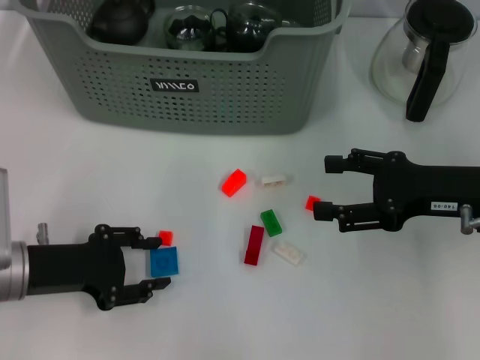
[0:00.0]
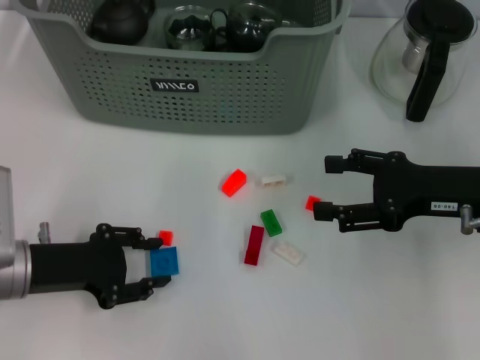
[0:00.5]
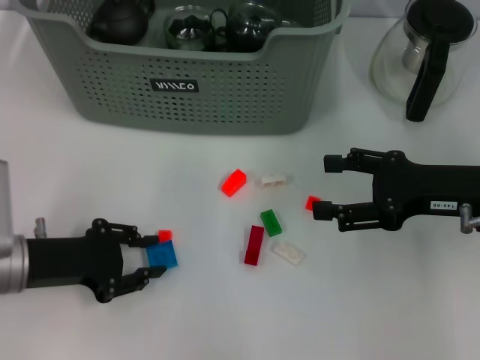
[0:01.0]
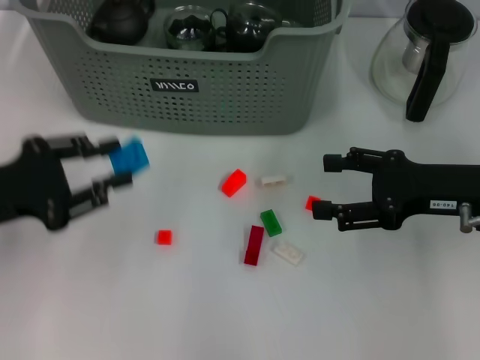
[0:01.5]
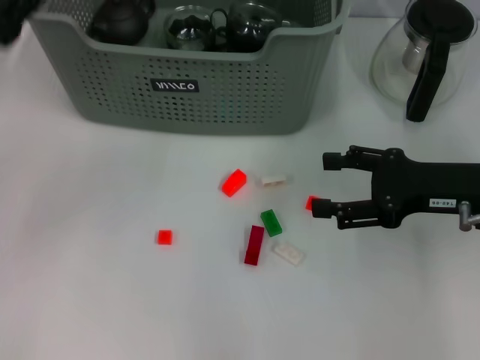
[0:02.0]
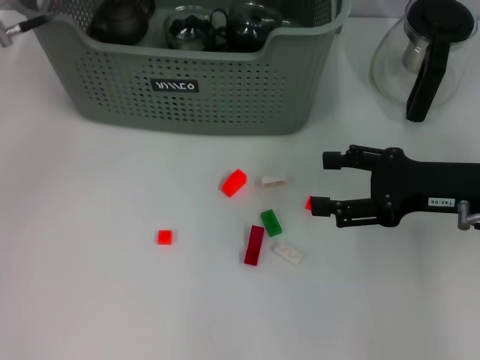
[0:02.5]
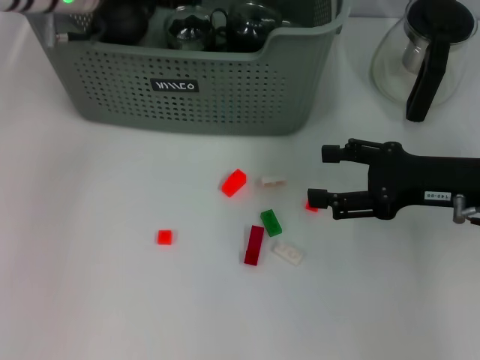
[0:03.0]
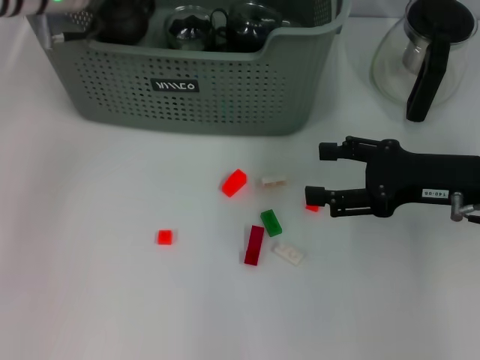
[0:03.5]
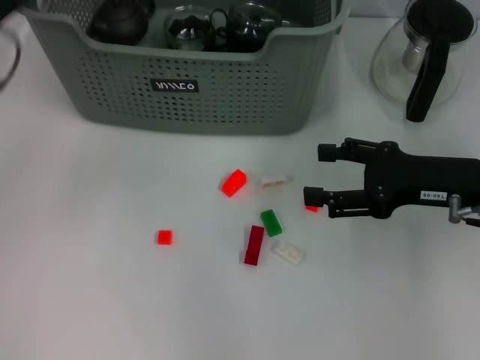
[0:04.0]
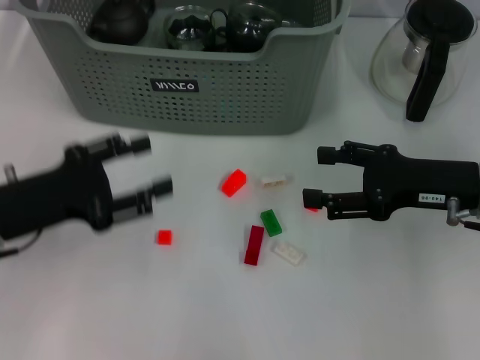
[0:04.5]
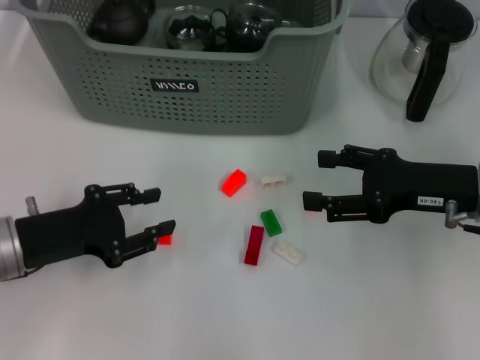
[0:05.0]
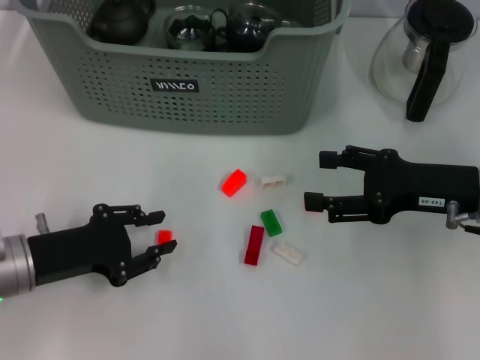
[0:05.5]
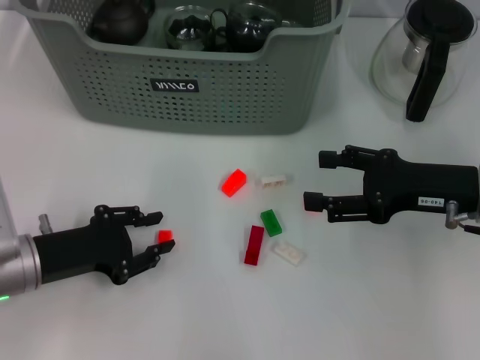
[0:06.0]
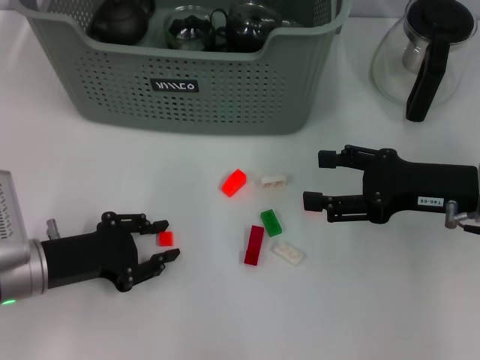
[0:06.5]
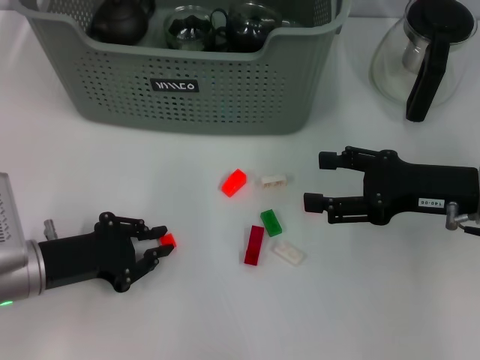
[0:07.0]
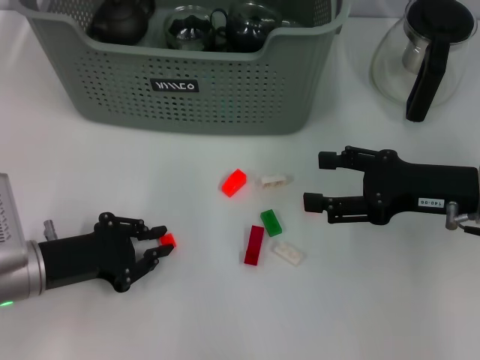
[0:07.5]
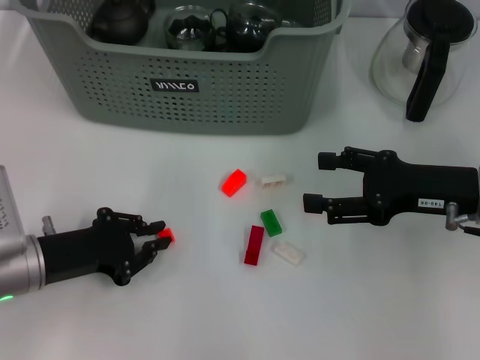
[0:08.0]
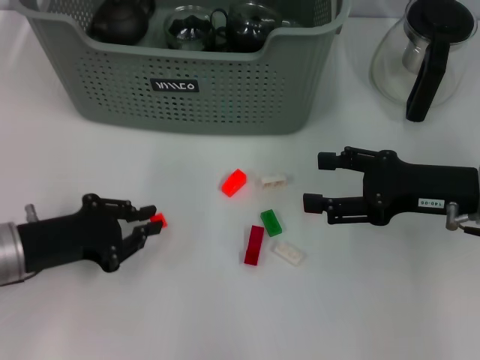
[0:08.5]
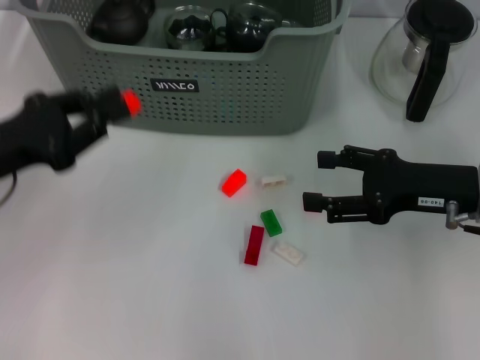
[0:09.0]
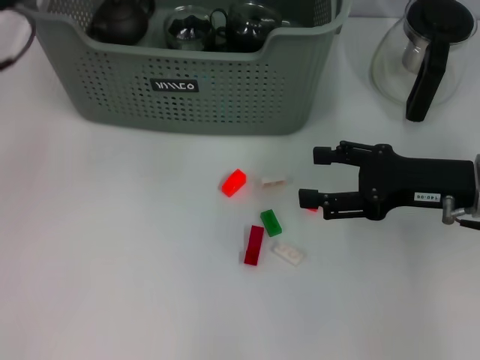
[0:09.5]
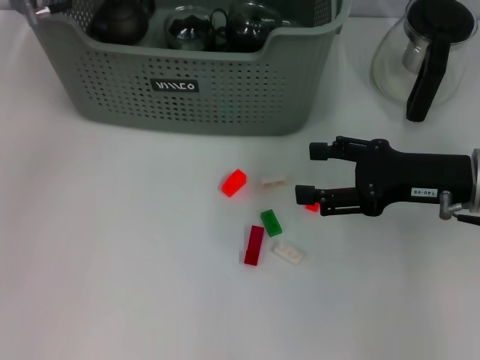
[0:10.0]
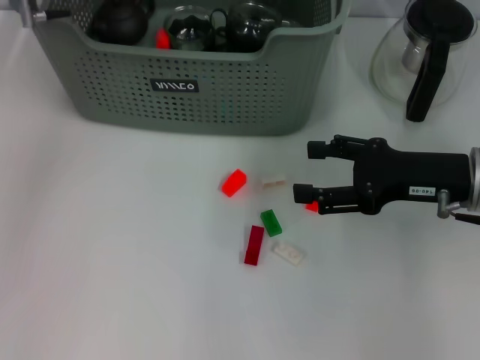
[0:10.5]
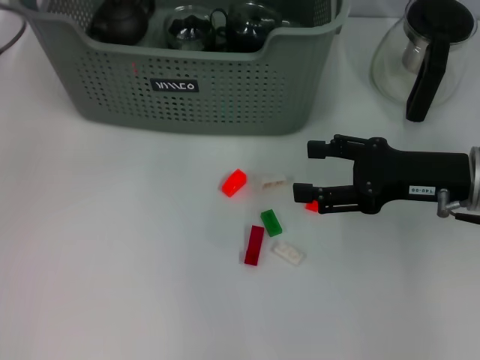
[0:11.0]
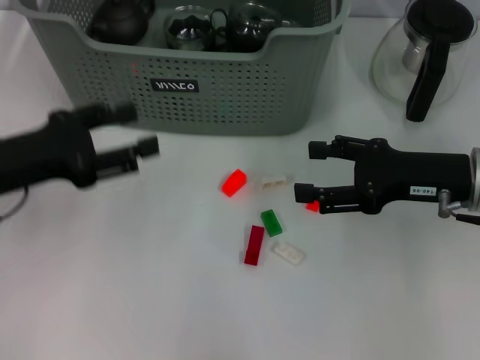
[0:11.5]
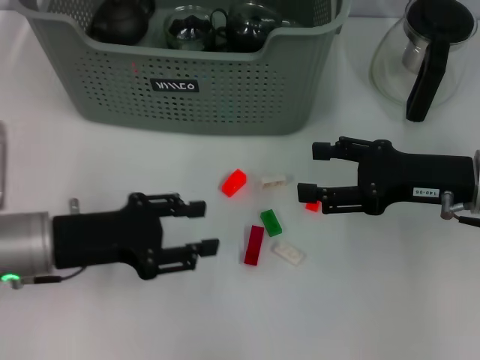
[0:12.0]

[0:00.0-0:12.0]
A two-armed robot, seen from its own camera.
Task of the whole recording: pick up the teacup on the table and place it into the storage bin, pick up the block on the table and place it into the storage bin.
Step, 0:01.5 to 0:03.5: Place the dark blue block in the storage box with left gripper.
Step, 0:04.0 to 0:08.0: Grasp the orange block with left gripper.
Step, 0:08.5 to 0:10.5: Place the orange block in the storage box with left gripper.
0:00.0 to 0:02.0: The left gripper travels upward and forward by some 10 cm.
0:02.0 to 0:04.0: The left gripper travels forward and back again, roughly 15 cm each way, and opens up.
0:04.0 to 0:06.0: The left gripper moves downward and backward, some 15 cm.
0:06.0 to 0:08.0: Neither gripper changes place.
0:08.0 to 0:10.0: The left gripper moves forward and upward, some 25 cm.
0:10.0 to 0:12.0: The left gripper moves backward and downward, approximately 25 cm, and opens its fingers.

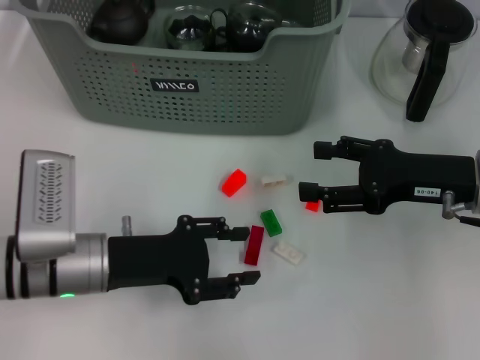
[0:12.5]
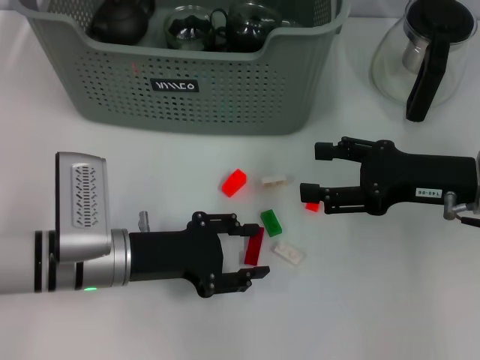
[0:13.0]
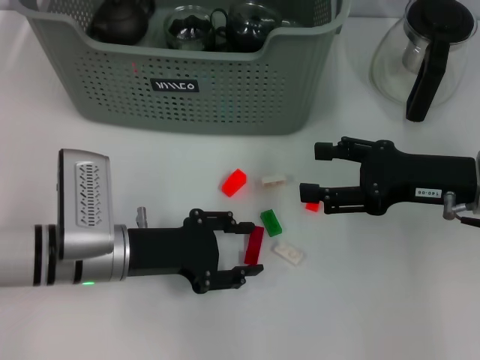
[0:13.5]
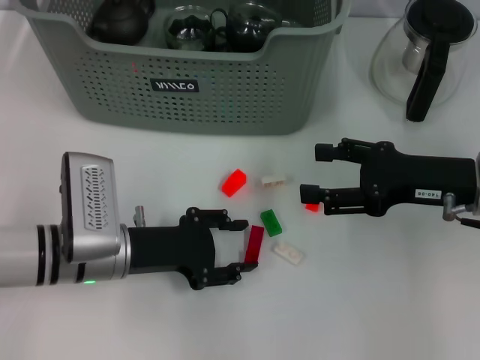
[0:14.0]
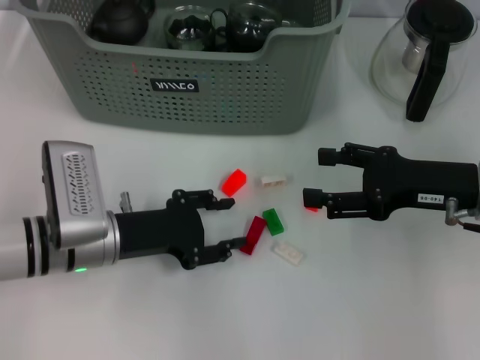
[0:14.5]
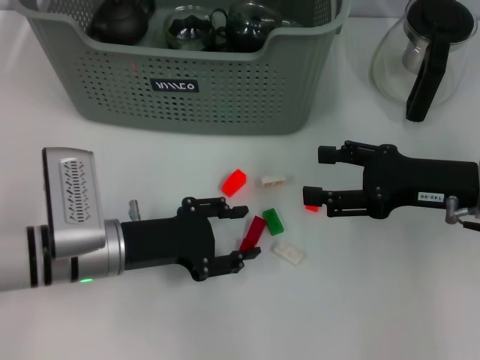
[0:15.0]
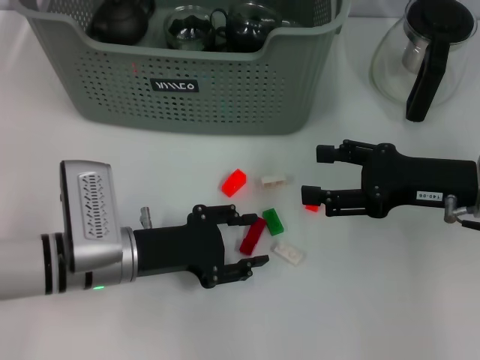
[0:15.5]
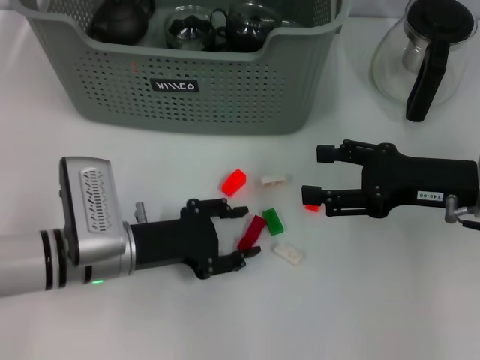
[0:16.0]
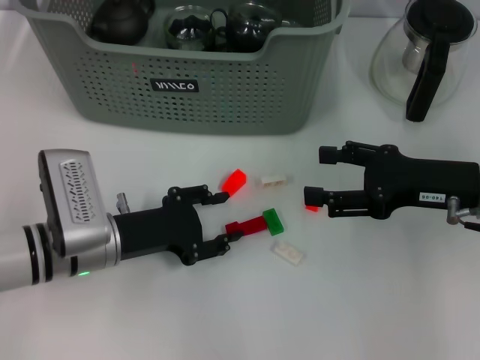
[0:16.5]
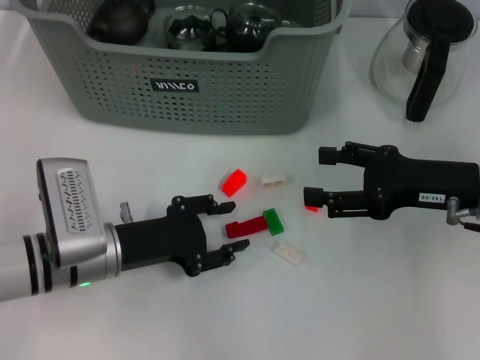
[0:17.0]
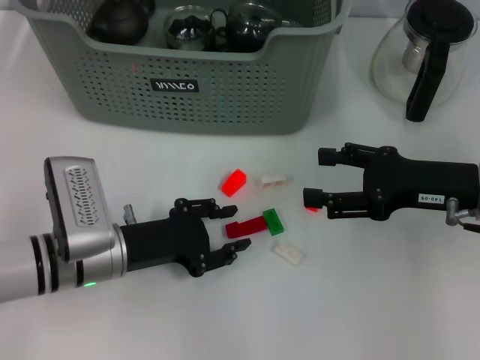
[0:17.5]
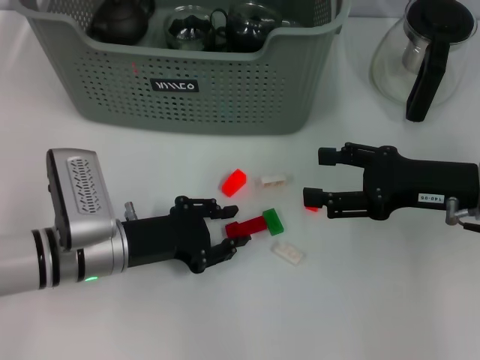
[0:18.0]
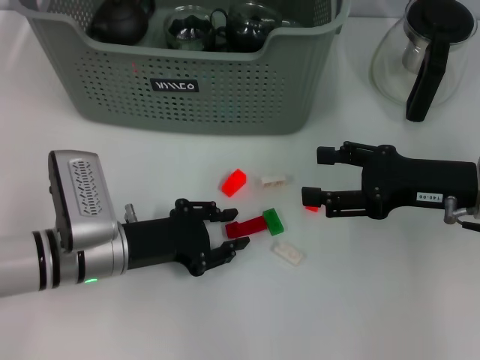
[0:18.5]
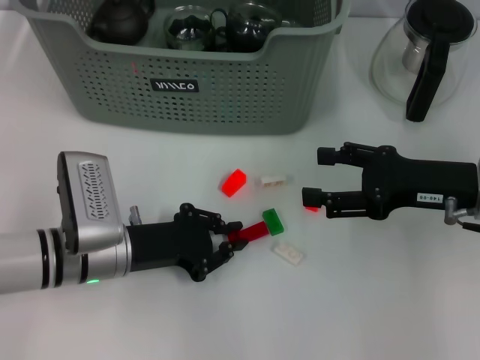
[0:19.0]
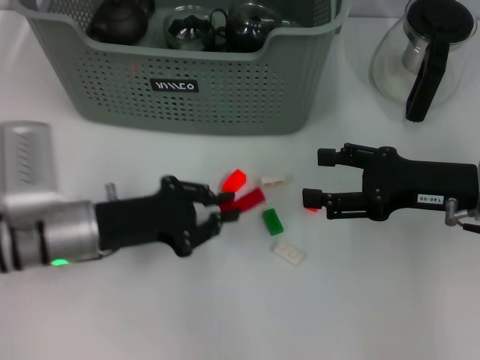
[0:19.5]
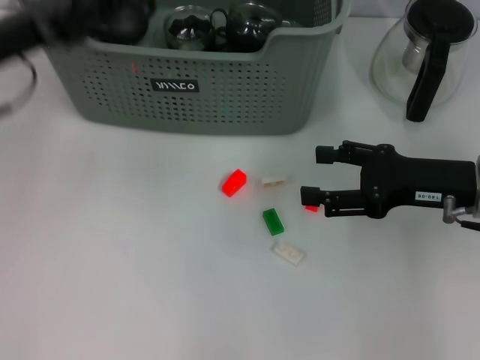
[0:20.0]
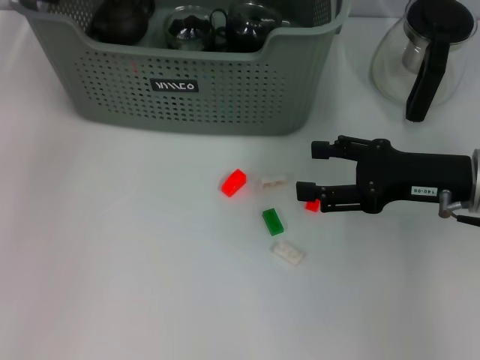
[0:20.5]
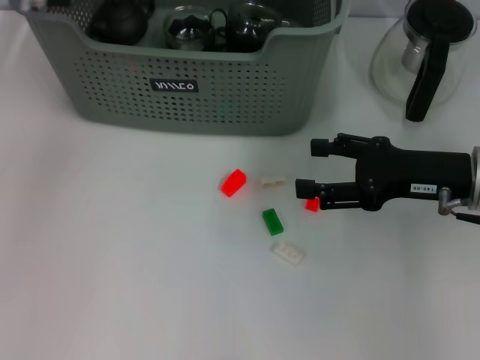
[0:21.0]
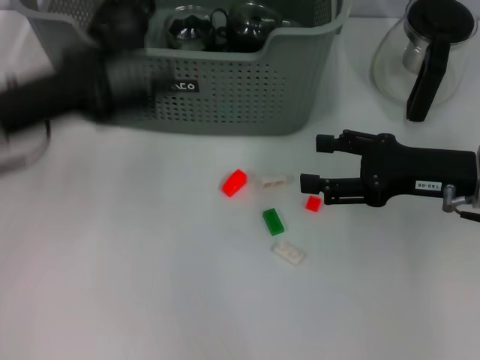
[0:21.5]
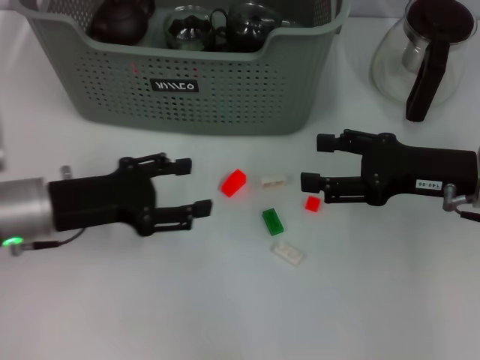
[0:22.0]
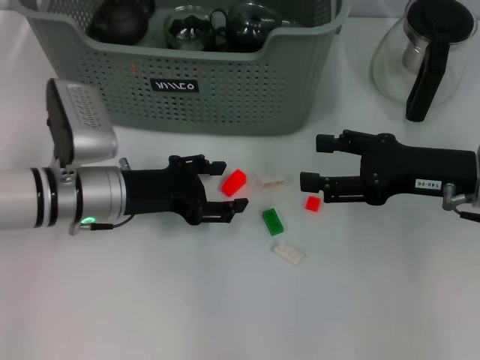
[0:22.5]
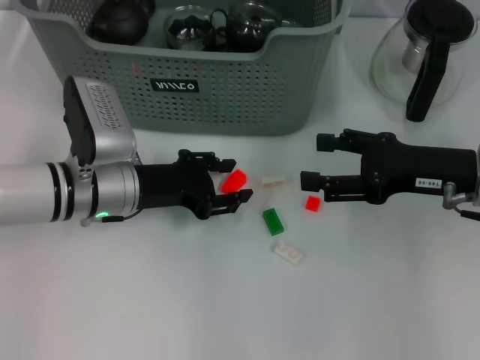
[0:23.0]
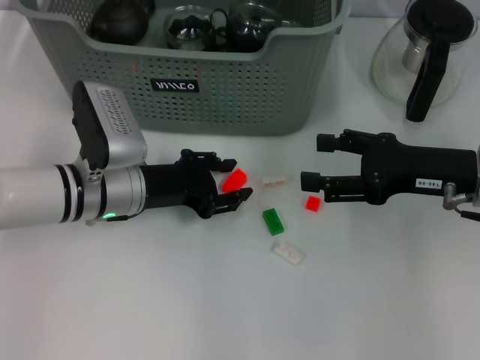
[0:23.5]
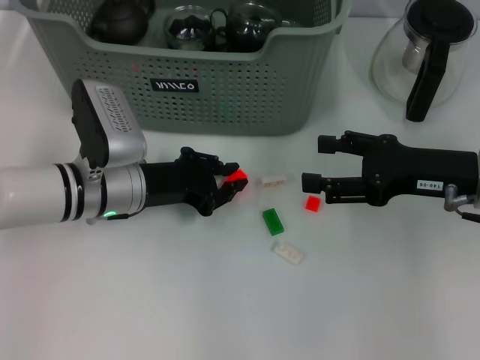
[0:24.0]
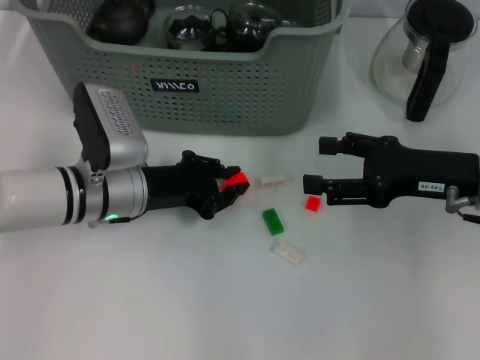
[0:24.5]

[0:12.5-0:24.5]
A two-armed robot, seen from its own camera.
Task of the whole recording: pick up the teacup on the table and place it into the storage bin, pick up the block on the table and place it into the storage bin.
Step, 0:12.5 to 0:18.5: Grasp the red block with left gripper.
Step, 0:19.5 to 0:21.0: Place the red block in the storage box with left gripper.
0:12.5 to 0:18.5: The grippers make only small movements.
0:18.5 to 0:20.5: The left gripper is displaced upward and forward by some 30 cm.
0:20.5 to 0:22.5: The left gripper goes roughly 25 cm downward and backward, and opens its fingers.
0:22.5 to 0:24.5: The left gripper closes up.

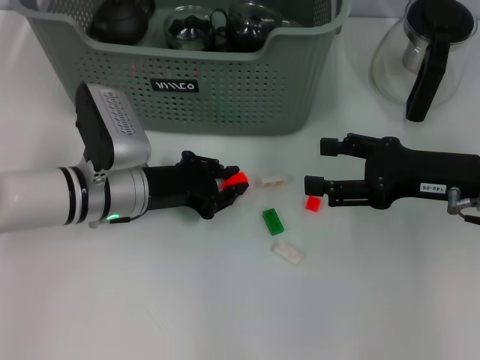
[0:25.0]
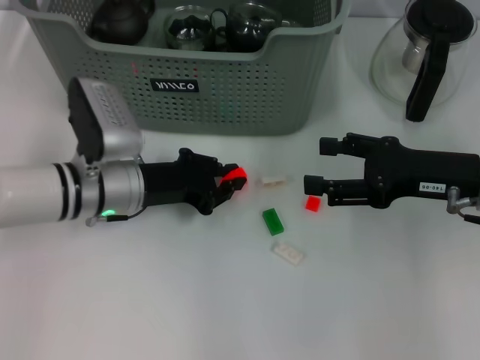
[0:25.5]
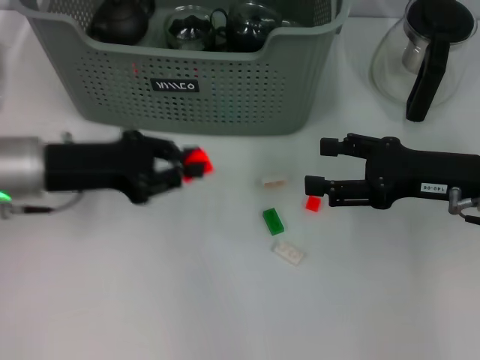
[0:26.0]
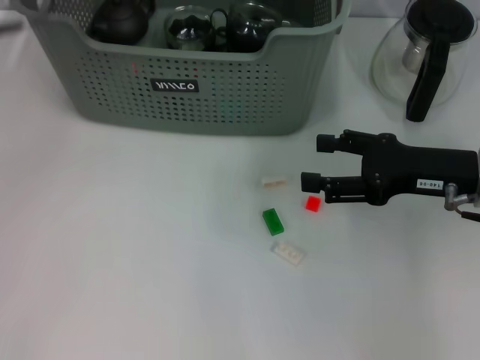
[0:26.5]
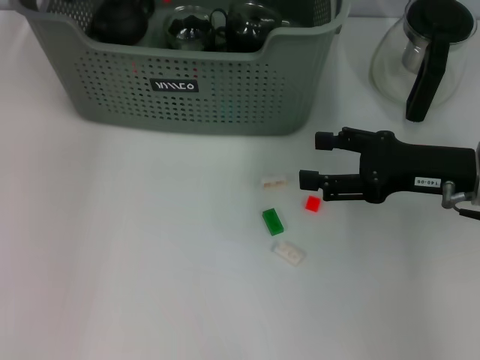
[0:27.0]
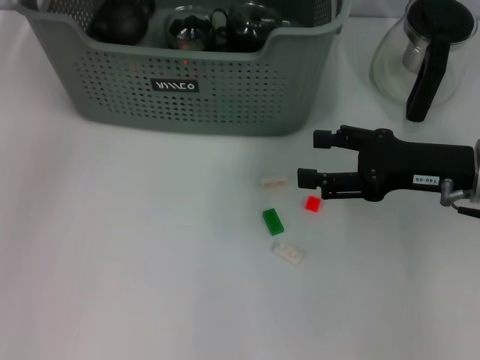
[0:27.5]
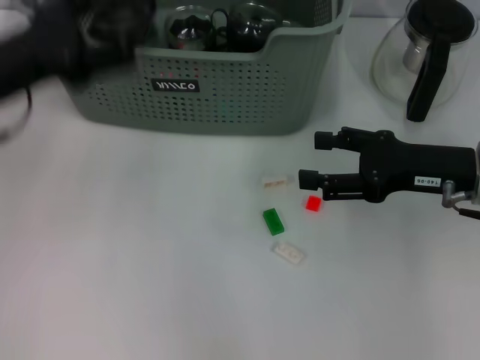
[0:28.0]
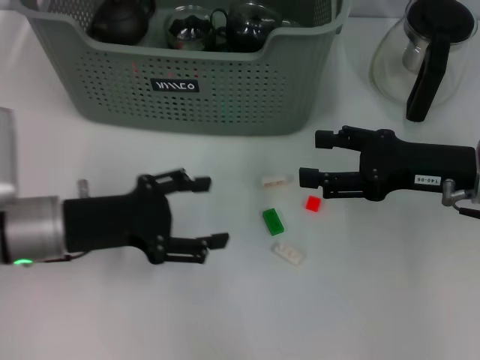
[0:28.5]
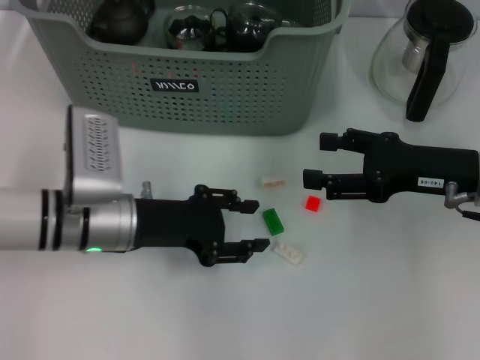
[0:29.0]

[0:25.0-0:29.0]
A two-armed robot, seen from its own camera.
Task of the whole recording: pick up the teacup on the table and place it into the storage bin, pick up the block on the table and place it into the storage bin.
Step, 0:26.0 to 0:27.5: Place the orange block in the storage box with left gripper.
0:25.0 to 0:27.0: The left gripper goes some 25 cm upward and forward.
0:27.0 to 0:29.0: The left gripper moves backward and downward, some 25 cm, and opens up.
